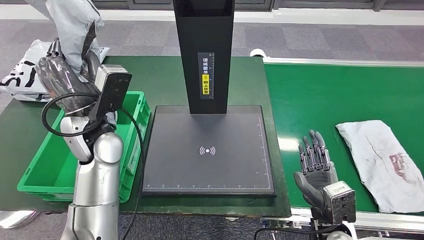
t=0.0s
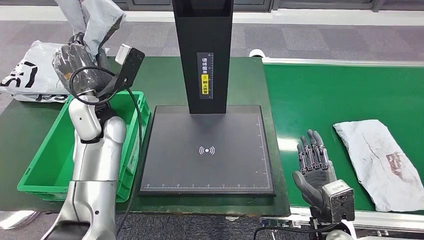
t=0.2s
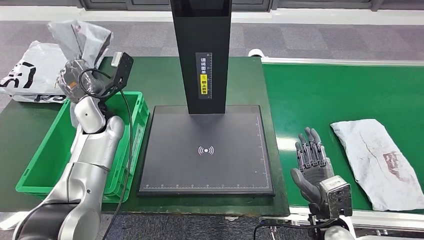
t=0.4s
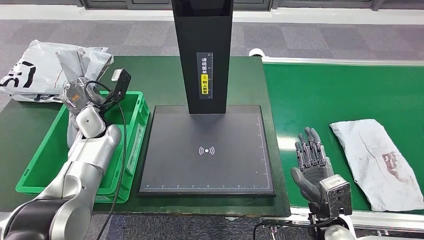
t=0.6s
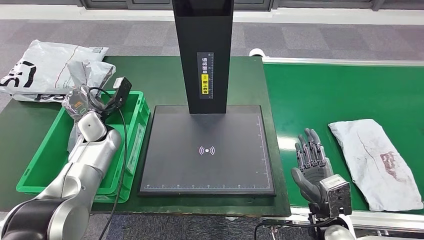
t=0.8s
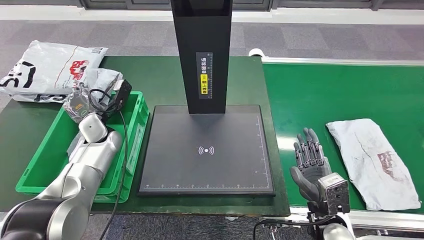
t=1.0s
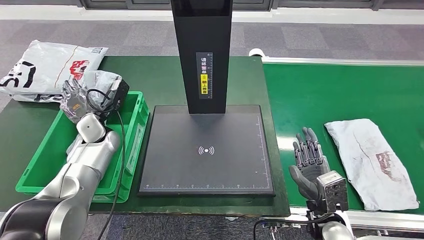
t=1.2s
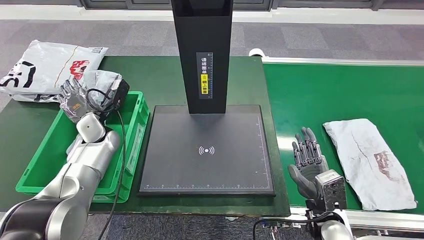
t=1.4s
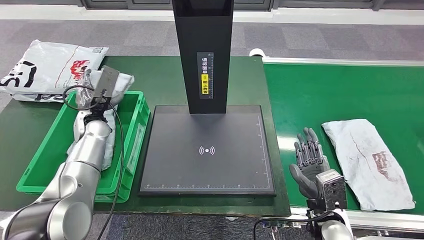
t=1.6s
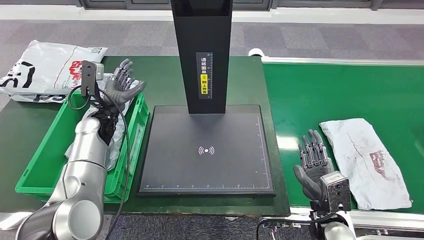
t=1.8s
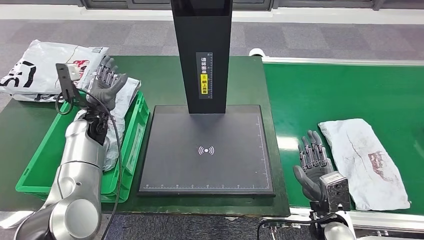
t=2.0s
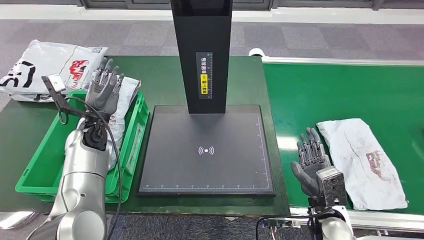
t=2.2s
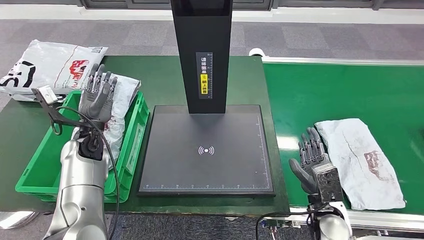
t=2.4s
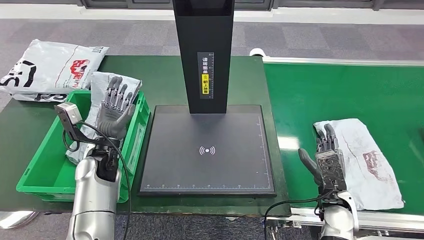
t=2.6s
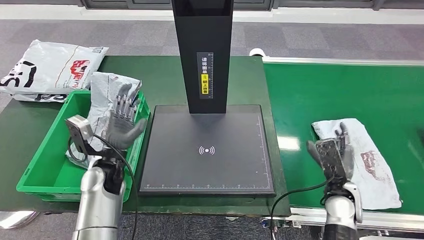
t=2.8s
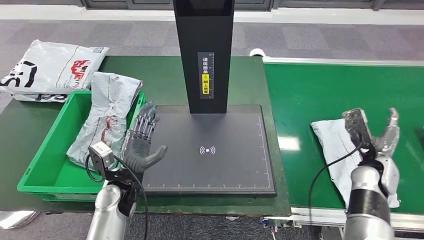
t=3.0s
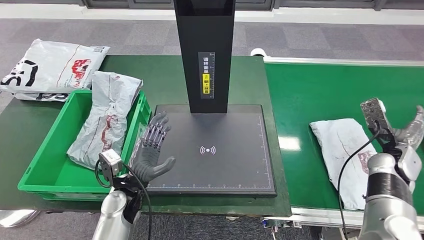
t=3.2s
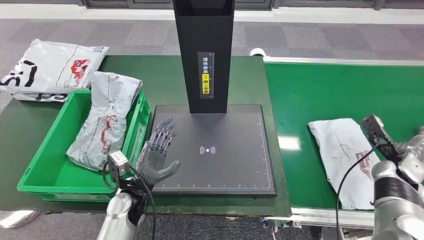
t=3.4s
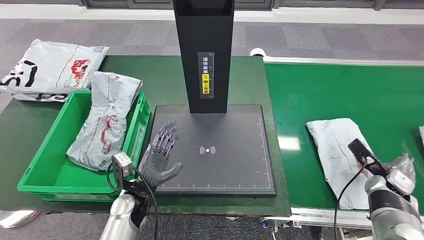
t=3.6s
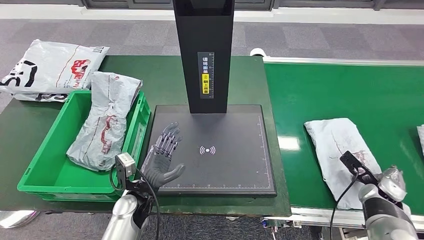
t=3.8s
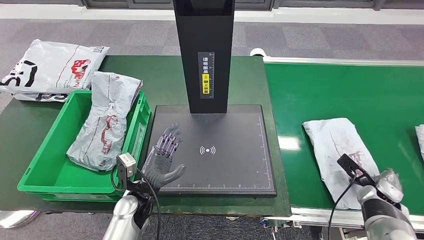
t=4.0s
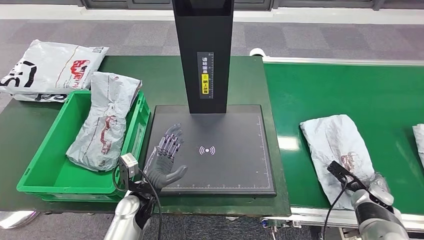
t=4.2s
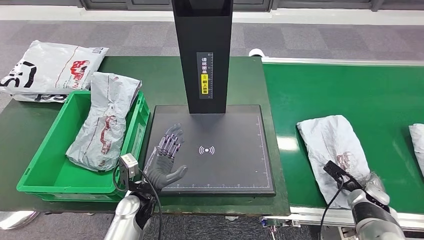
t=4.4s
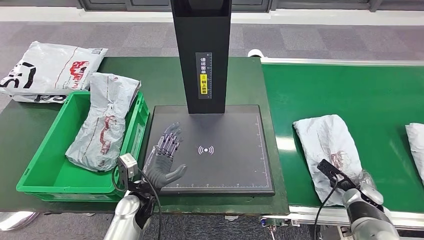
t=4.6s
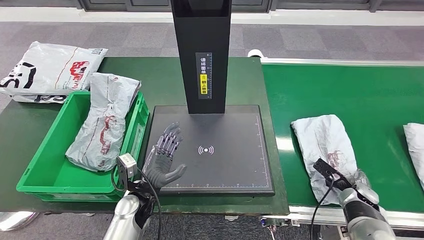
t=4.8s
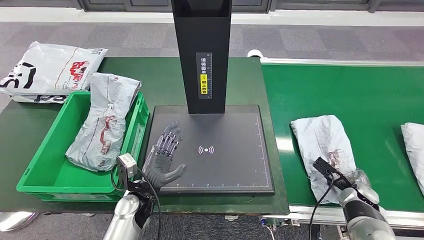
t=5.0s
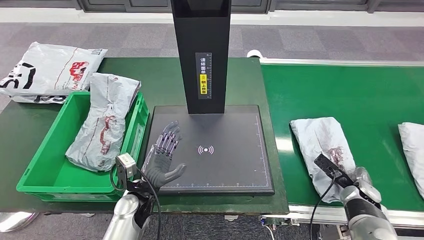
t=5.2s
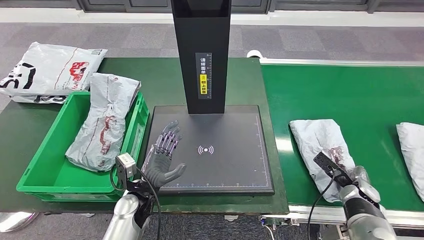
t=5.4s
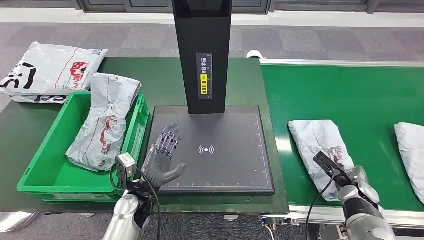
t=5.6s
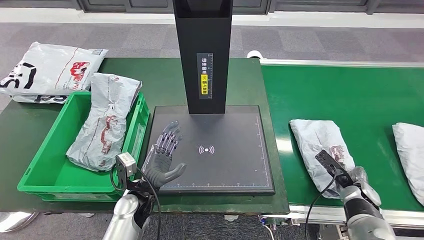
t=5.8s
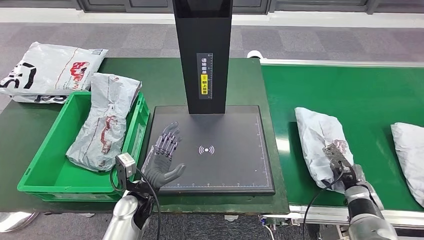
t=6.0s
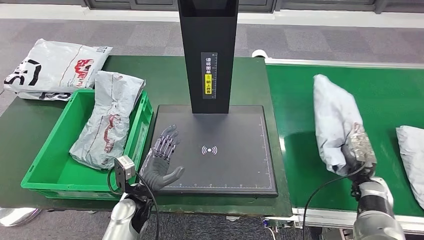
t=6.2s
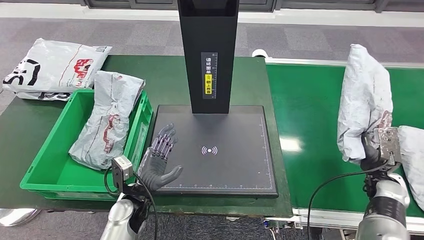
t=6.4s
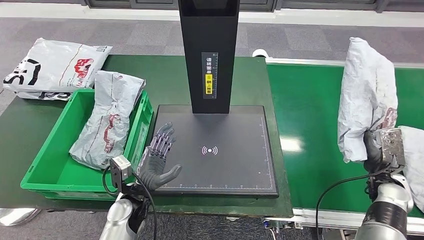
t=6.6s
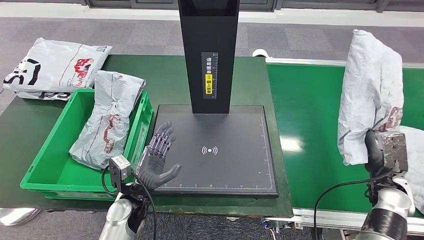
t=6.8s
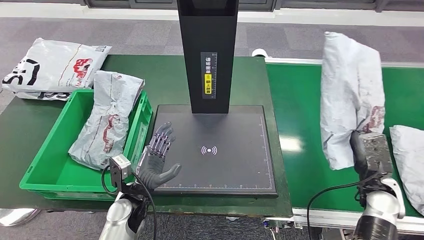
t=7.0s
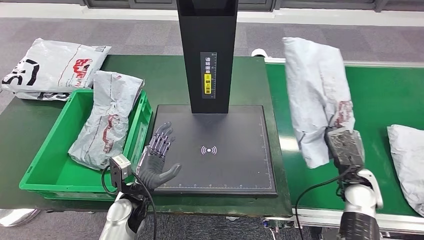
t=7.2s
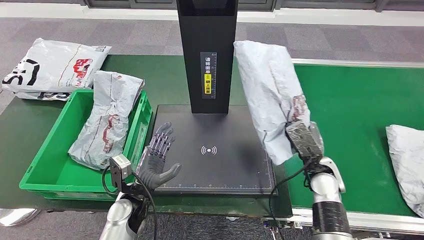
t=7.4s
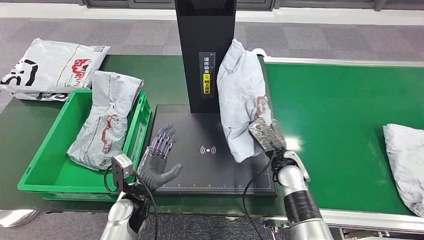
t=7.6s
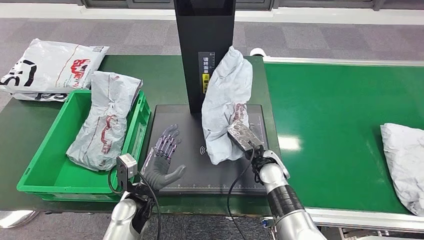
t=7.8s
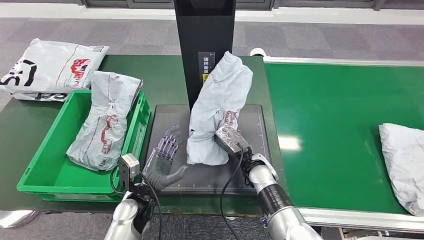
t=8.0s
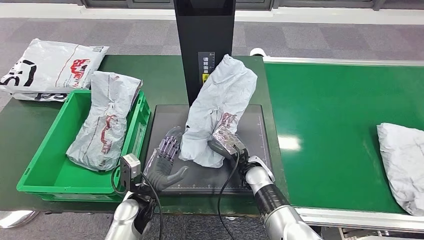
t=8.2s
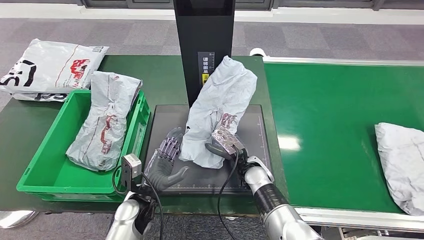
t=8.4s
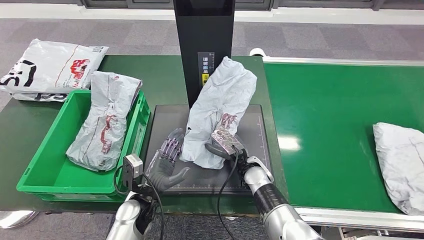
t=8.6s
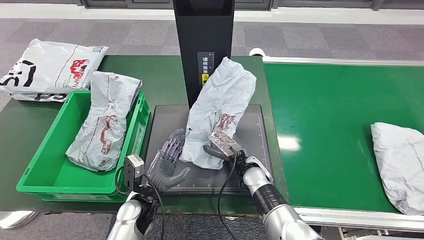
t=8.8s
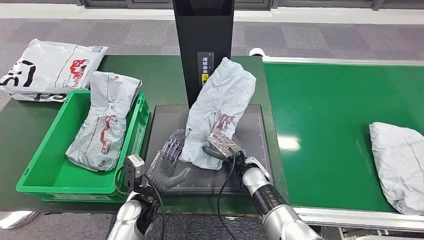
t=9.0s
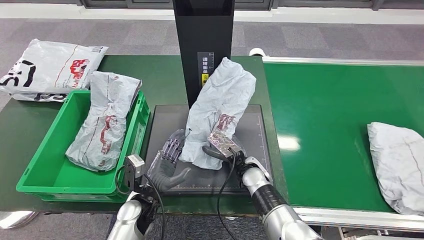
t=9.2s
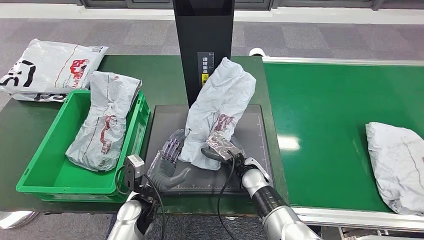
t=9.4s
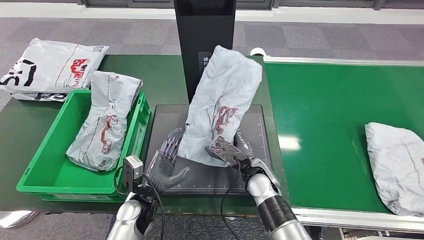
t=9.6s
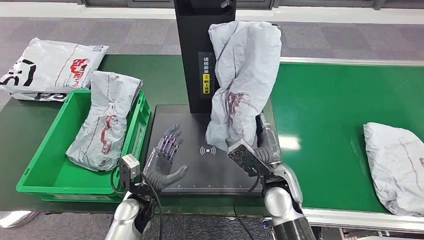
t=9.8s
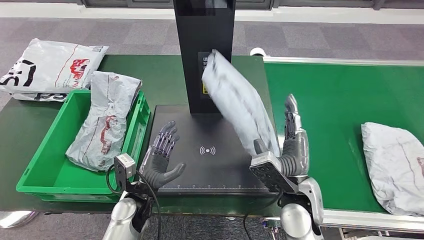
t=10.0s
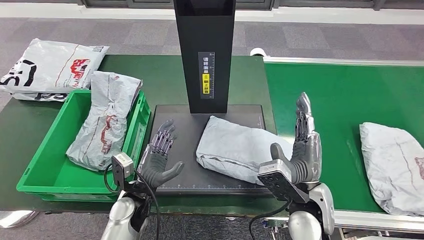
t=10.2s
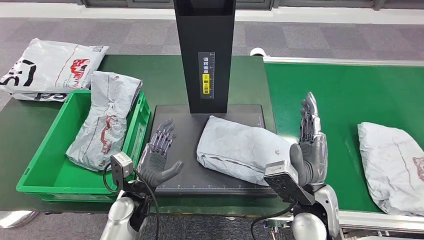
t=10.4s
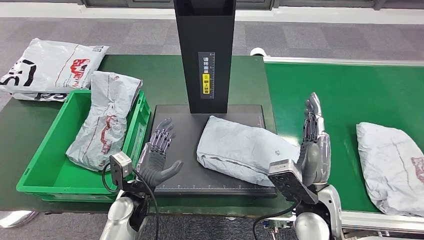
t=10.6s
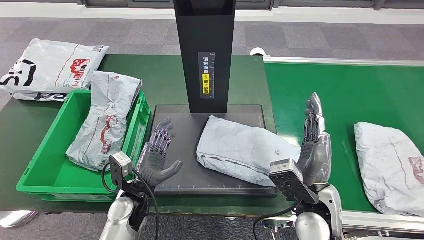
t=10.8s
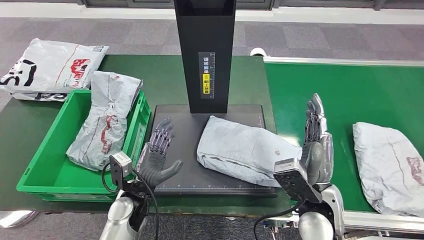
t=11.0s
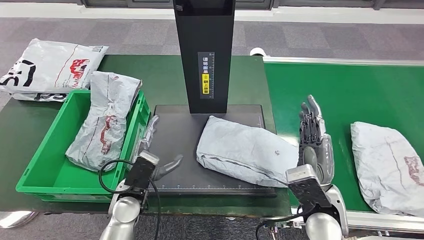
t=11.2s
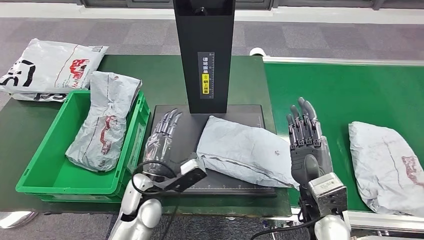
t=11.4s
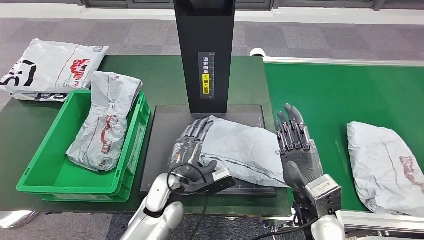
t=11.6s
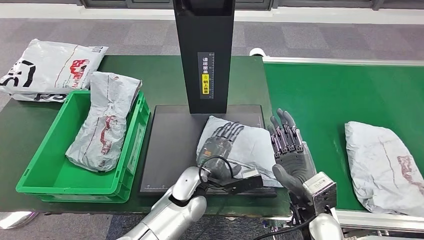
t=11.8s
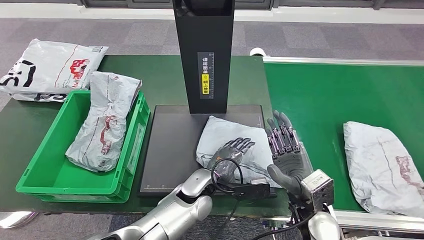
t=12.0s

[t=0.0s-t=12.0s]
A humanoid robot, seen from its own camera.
Step, t=0.0s to t=2.6s: Put the parcel inside the courier box.
Step, t=4.0s to t=6.6s: Pick up the parcel from the conveyor belt.
Step, t=6.8s to t=10.4s: Place the parcel onto the inbound machine.
t=3.0s to t=4.4s: The left hand shifts by some 5 cm; the right hand goes roughly 10 cm downward.
t=10.4s to t=12.0s: The left hand shifts approximately 15 cm to the right.

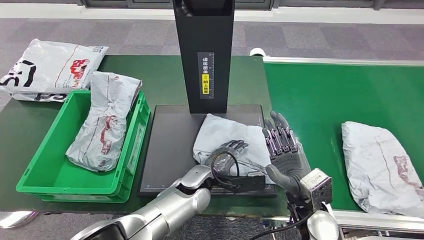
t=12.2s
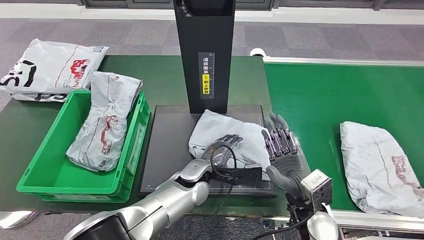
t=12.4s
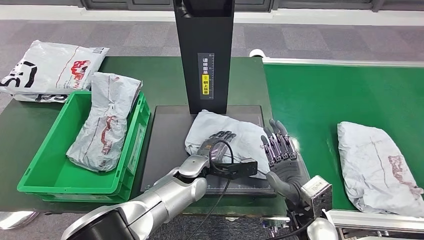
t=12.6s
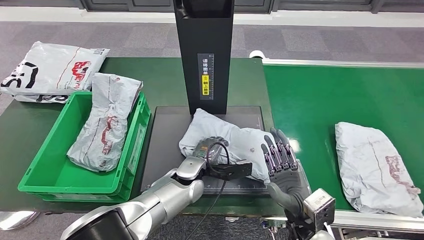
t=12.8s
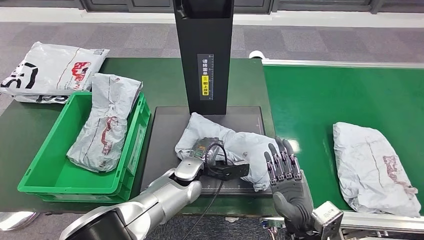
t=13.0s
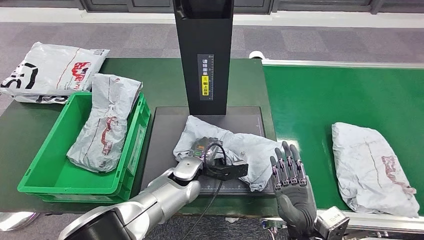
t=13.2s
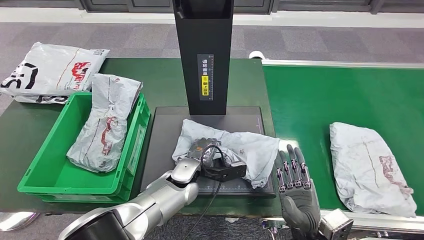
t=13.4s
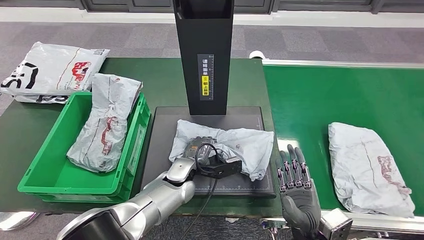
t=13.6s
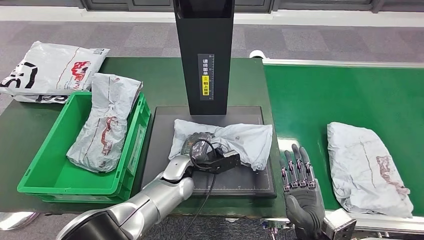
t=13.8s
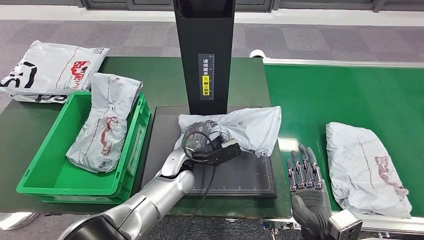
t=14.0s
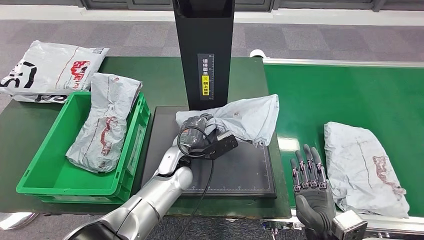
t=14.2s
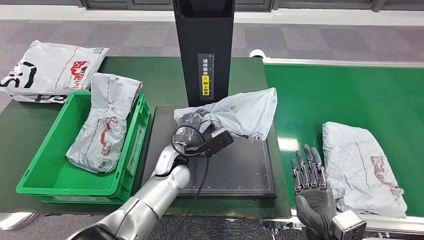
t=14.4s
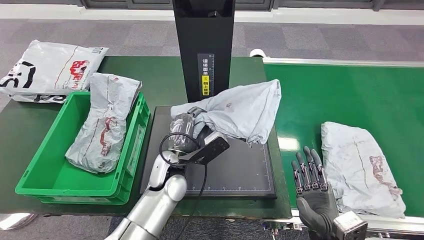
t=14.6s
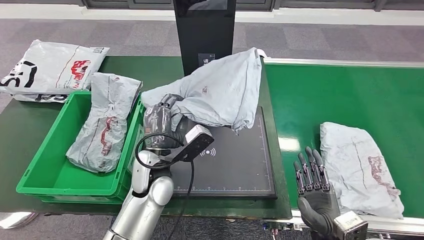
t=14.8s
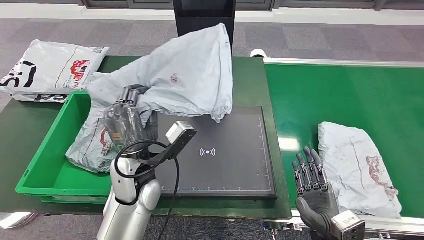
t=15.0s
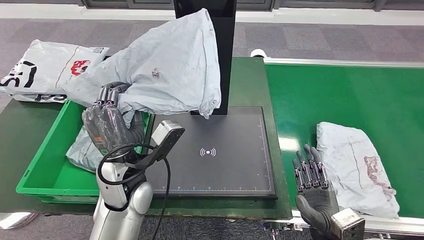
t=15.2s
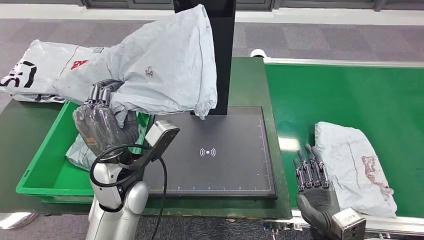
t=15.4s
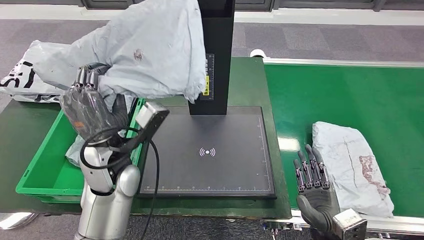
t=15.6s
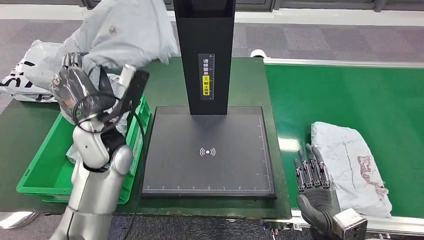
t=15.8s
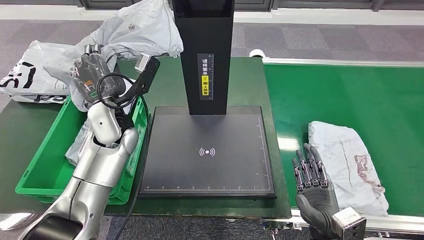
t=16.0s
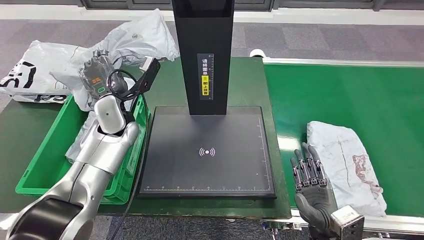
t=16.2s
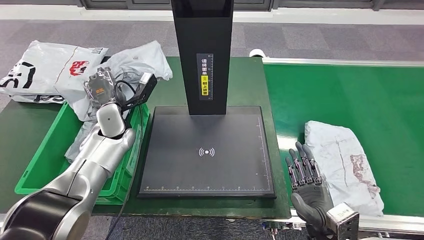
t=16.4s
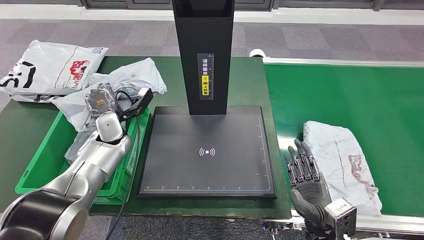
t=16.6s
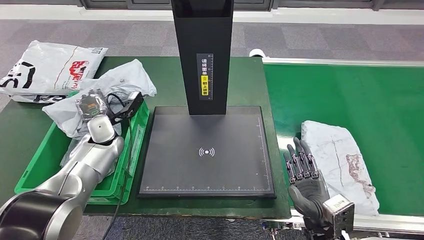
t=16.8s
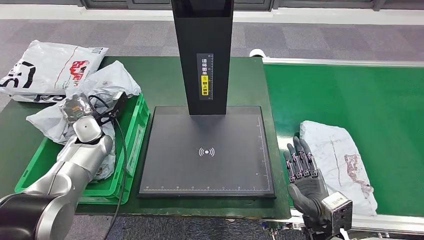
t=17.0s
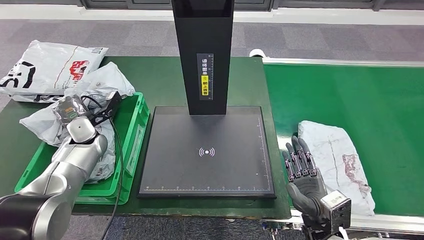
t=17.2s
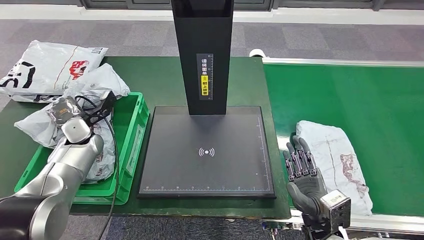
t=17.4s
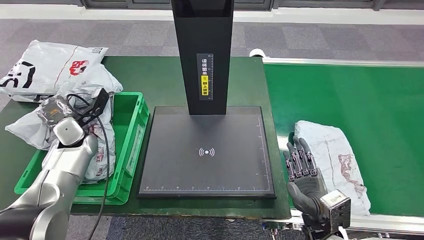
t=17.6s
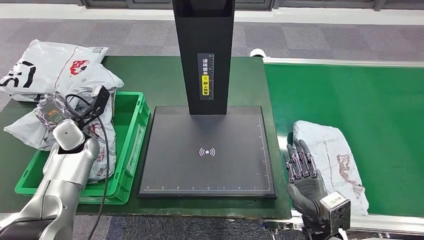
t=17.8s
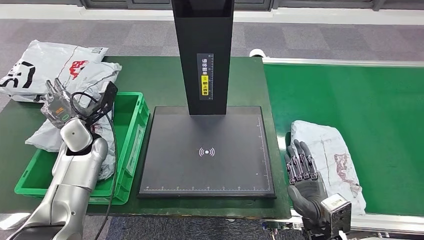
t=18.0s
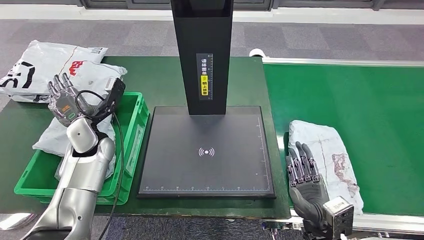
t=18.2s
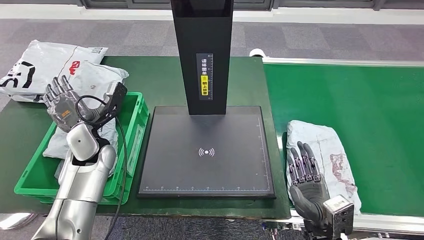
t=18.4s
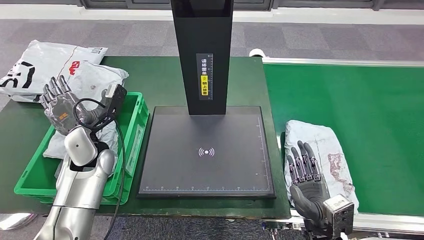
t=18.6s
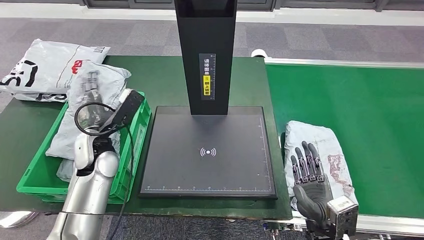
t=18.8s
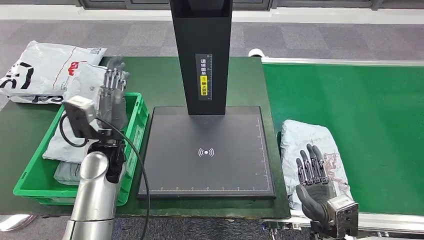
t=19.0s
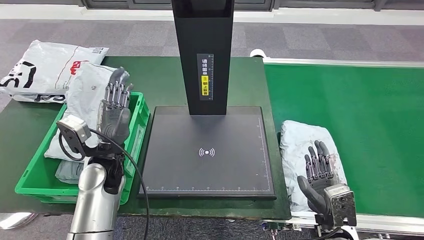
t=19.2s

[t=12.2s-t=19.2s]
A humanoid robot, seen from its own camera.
Step, t=12.2s to t=14.6s: Pick up the parcel from the inbound machine.
